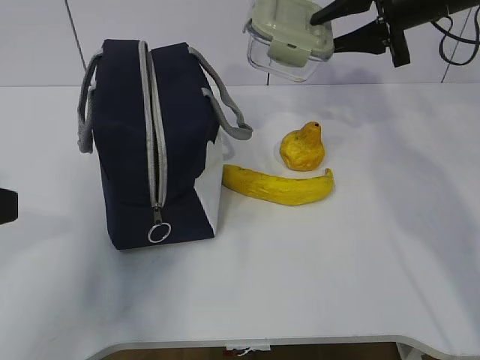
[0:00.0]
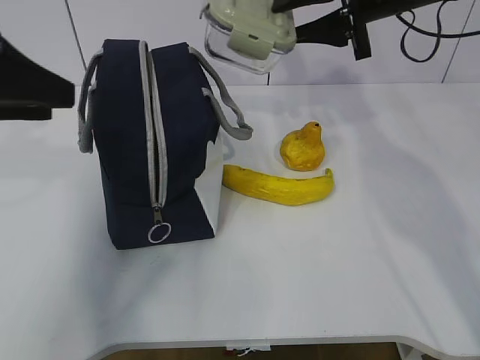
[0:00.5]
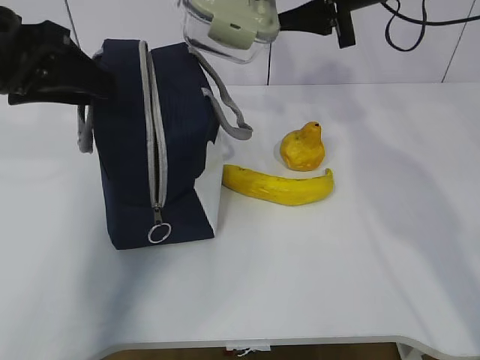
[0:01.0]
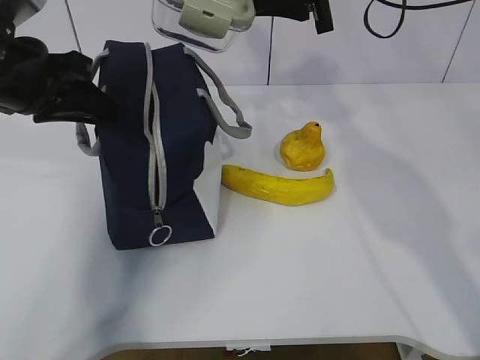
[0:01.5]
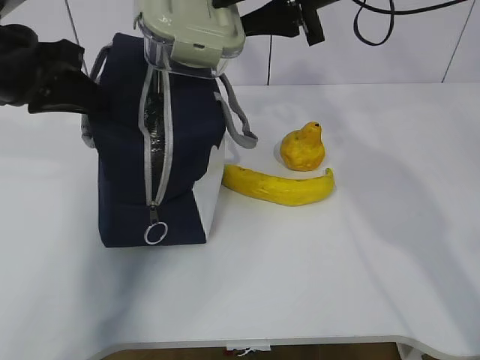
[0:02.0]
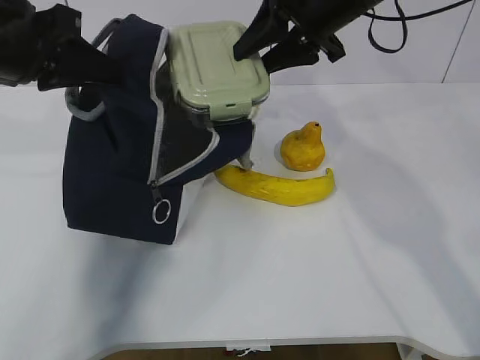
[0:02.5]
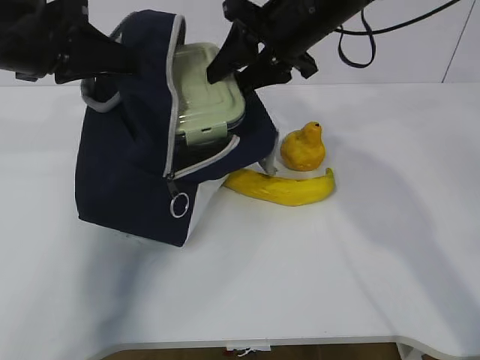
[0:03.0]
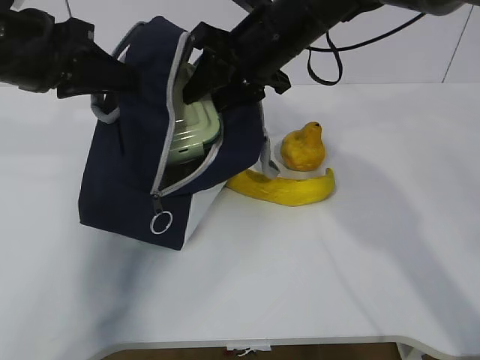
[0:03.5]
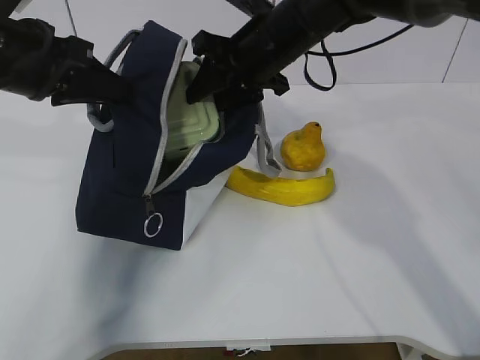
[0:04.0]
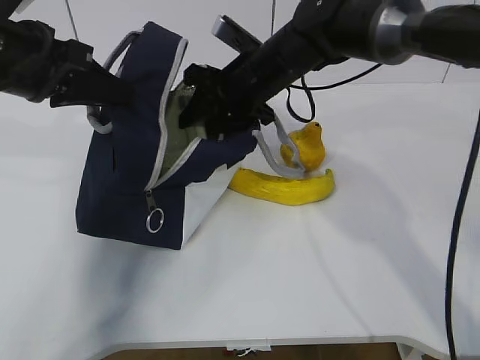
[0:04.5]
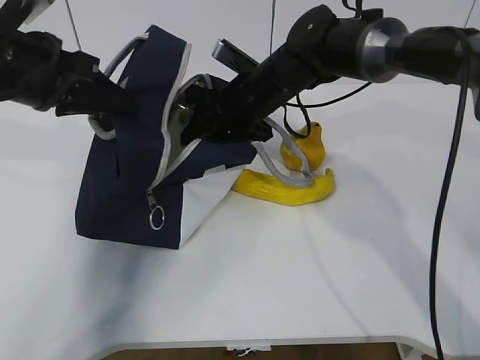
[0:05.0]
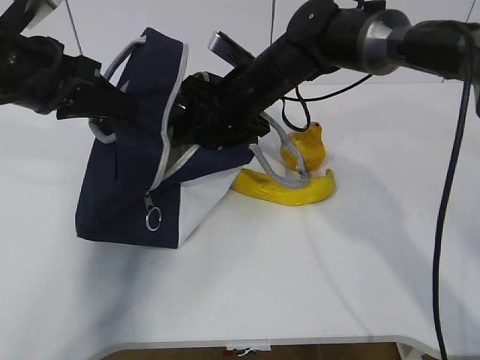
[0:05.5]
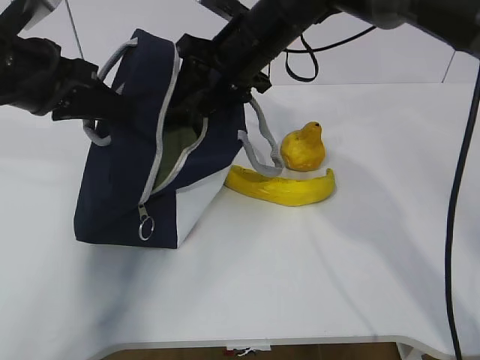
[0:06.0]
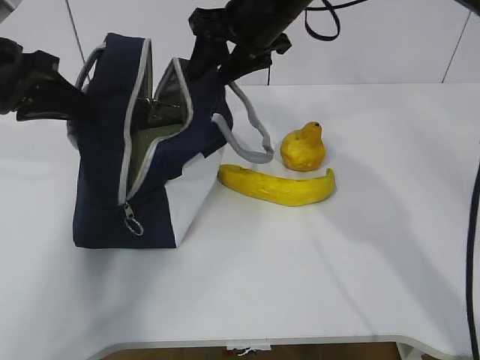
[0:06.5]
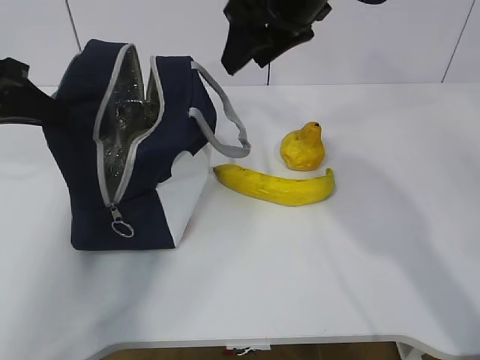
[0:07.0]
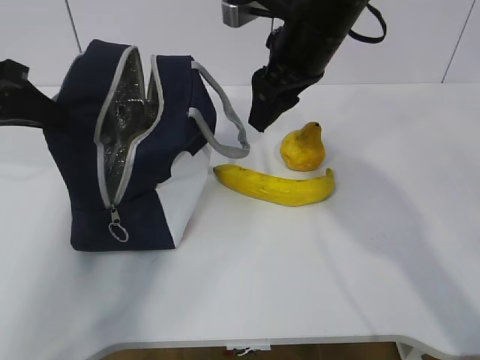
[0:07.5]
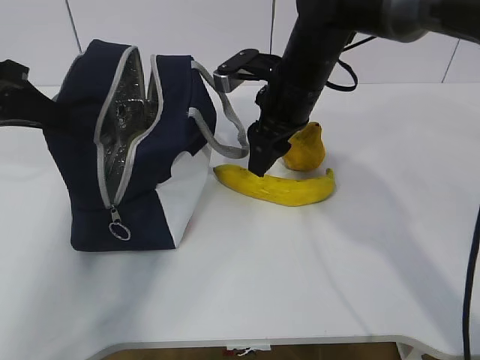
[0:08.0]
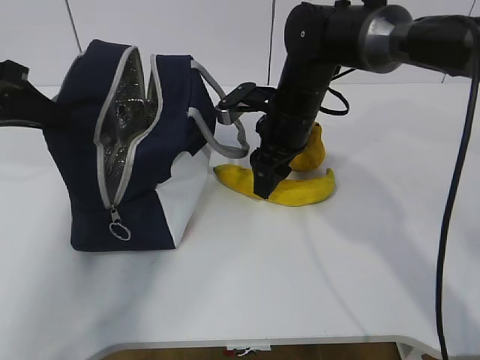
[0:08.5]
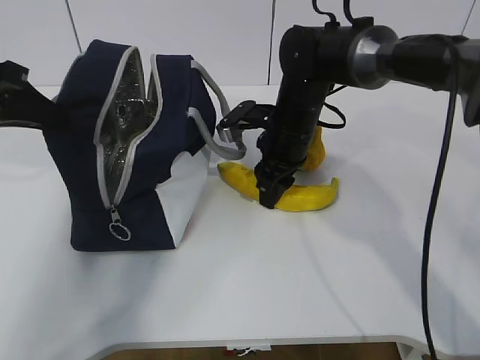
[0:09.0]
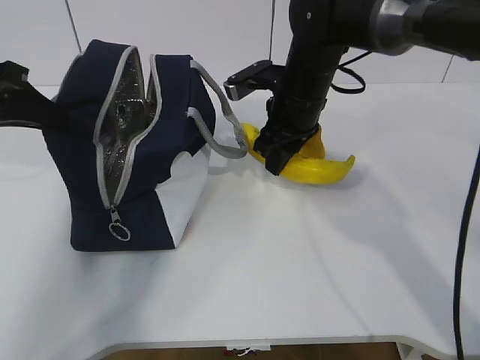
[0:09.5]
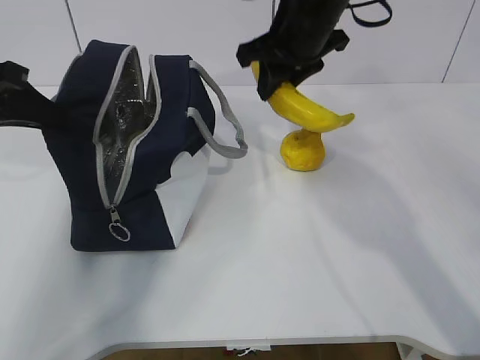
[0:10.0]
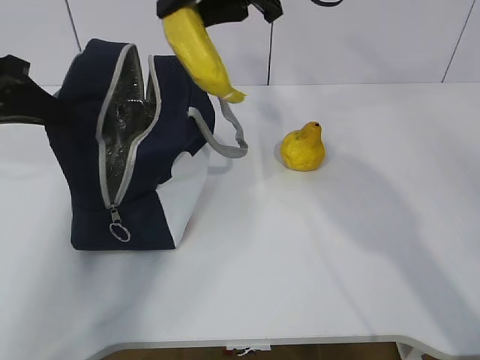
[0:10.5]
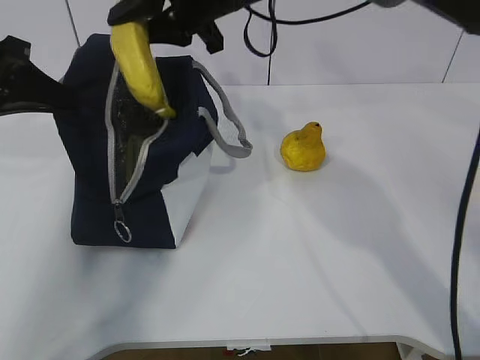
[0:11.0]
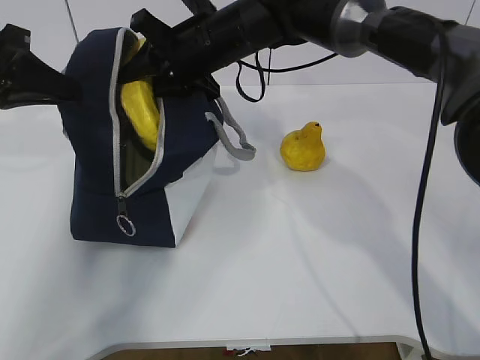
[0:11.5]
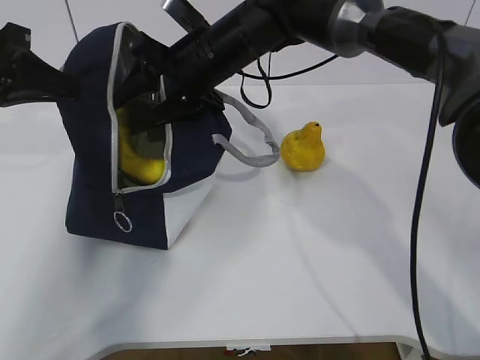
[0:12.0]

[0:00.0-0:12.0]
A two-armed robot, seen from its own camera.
Step, 0.0 to 2.0 s: Grab the banana with your right hand.
Step, 2.5 to 4.5 s: Place it into the bag with your right hand.
Step, 5.5 to 7.0 s: Grab the pear with your right hand.
Step, 10.5 to 11.5 s: Move the lunch bag to the right.
0.0 to 2.0 s: The right gripper shifts about 10 cm to the left, while the left gripper shifts some 15 cm forward, and closes up.
2.0 to 4.0 s: The right gripper travels downward and to the left by roughly 10 cm.
4.0 to 6.0 s: The right gripper goes downward and returns, about 10 cm each way.
6.0 to 8.0 s: The right gripper goes upward and returns, roughly 10 cm each way, while the left gripper shifts about 5 cm to the left.
8.0 to 10.0 s: The right gripper heads upward, covering approximately 5 cm, and closes.
10.0 to 12.0 s: The right gripper goes about 10 cm to the left, and opens.

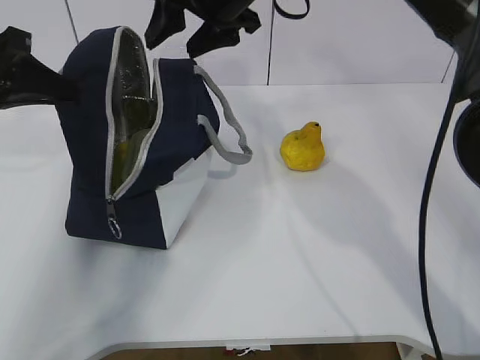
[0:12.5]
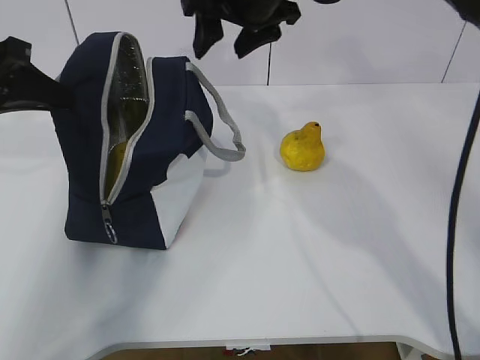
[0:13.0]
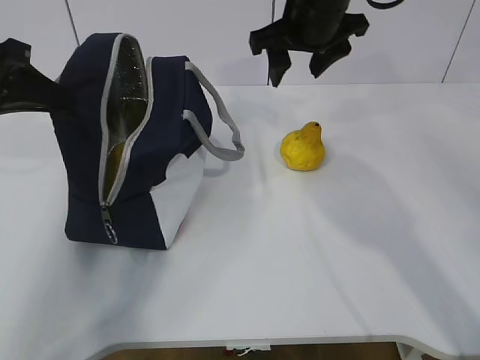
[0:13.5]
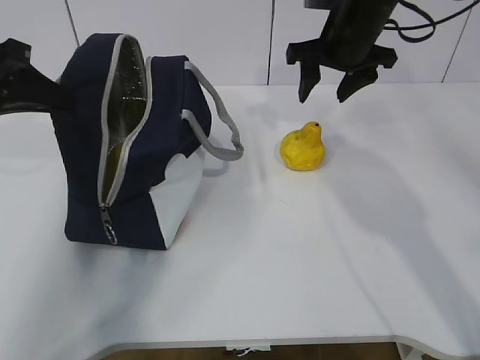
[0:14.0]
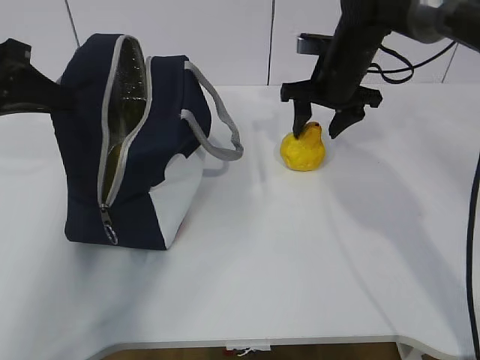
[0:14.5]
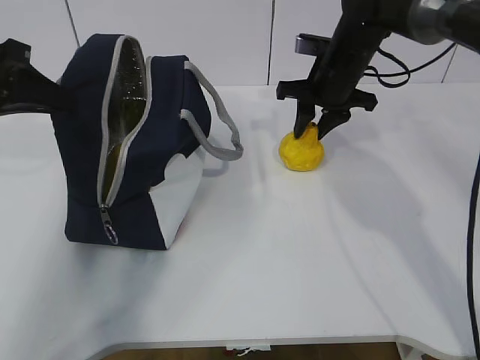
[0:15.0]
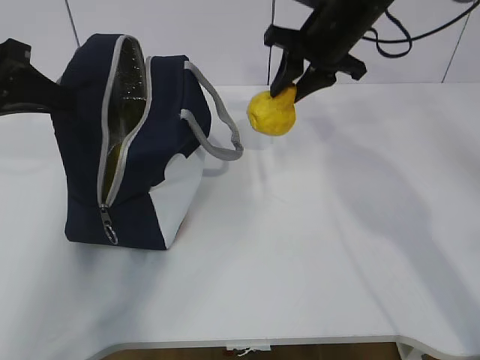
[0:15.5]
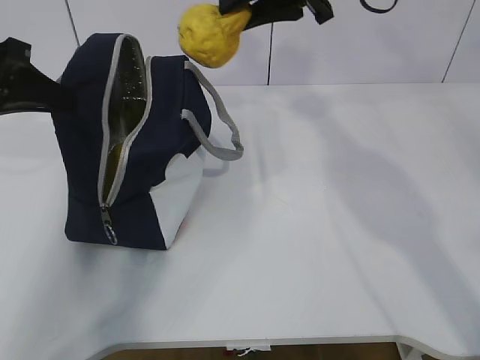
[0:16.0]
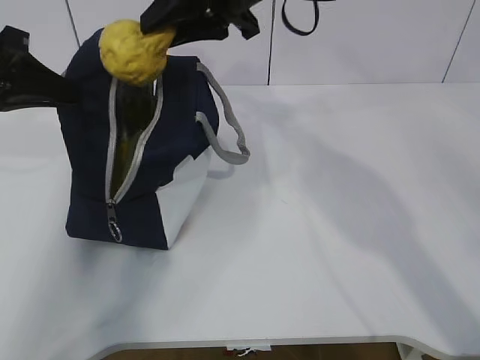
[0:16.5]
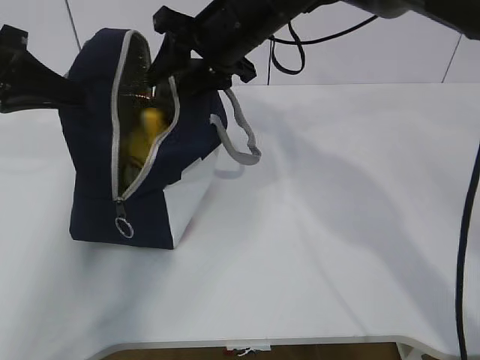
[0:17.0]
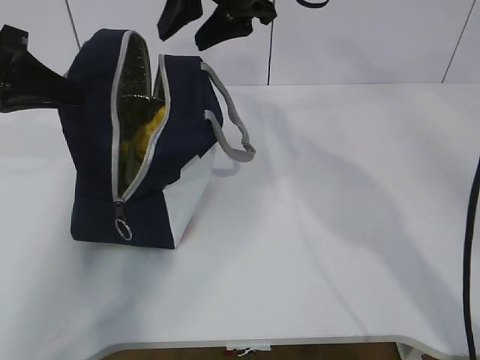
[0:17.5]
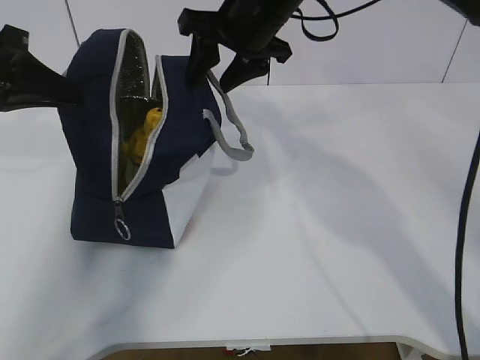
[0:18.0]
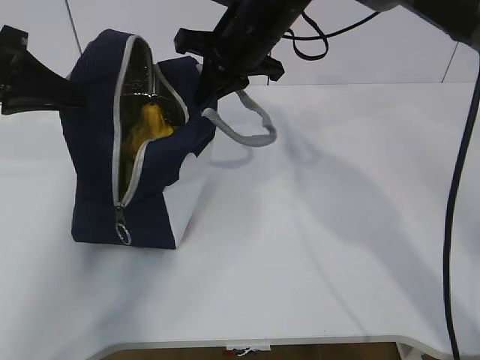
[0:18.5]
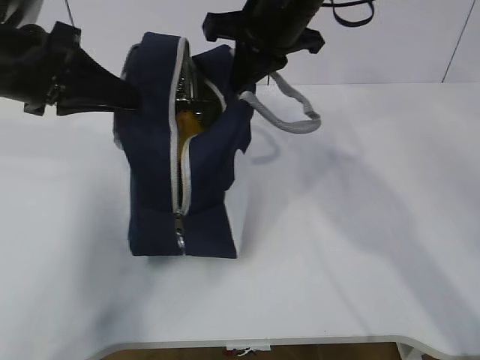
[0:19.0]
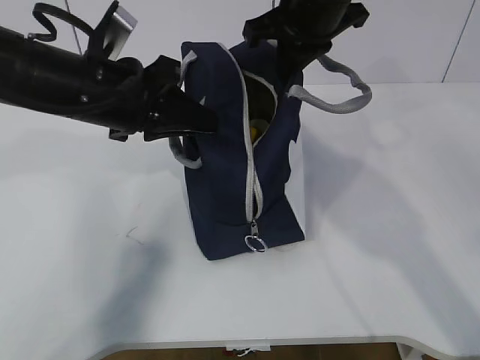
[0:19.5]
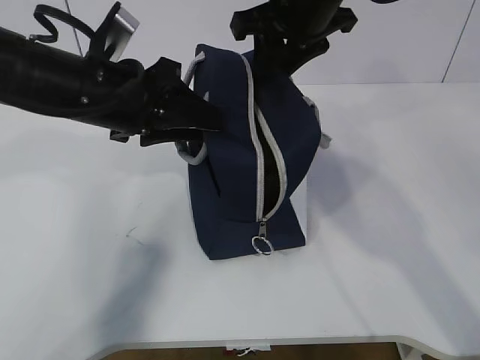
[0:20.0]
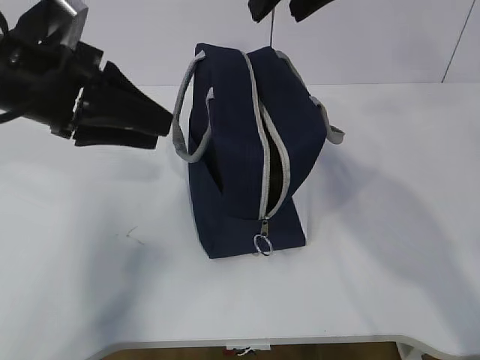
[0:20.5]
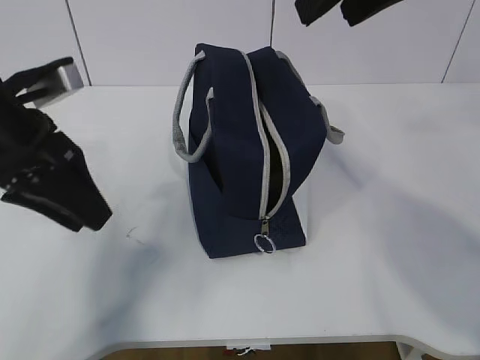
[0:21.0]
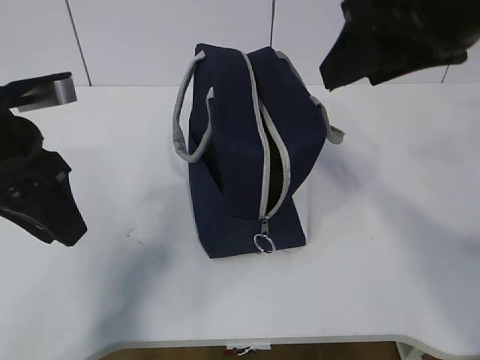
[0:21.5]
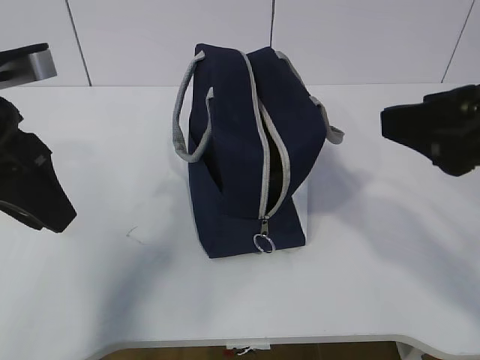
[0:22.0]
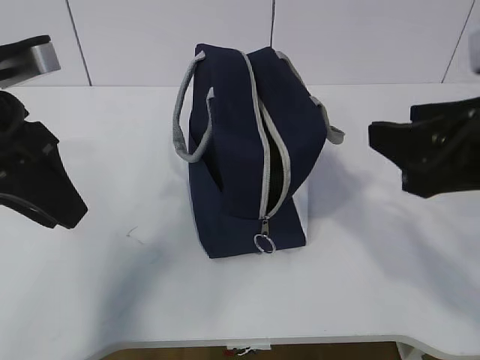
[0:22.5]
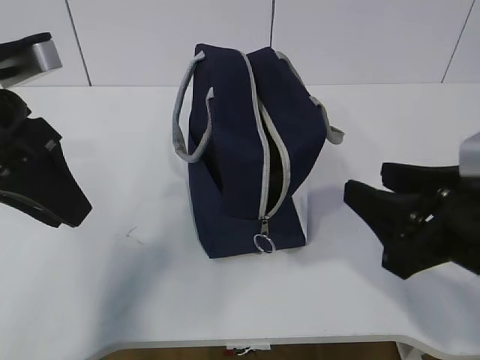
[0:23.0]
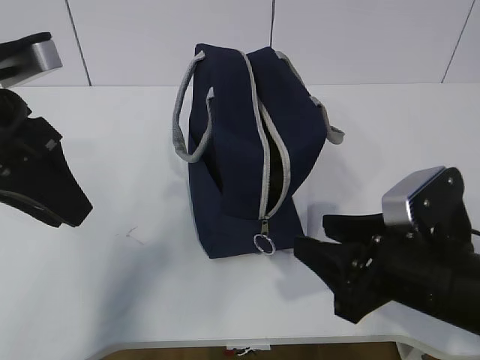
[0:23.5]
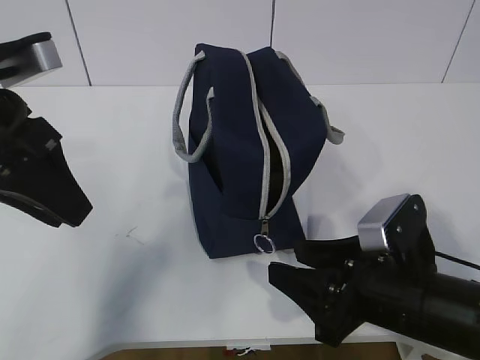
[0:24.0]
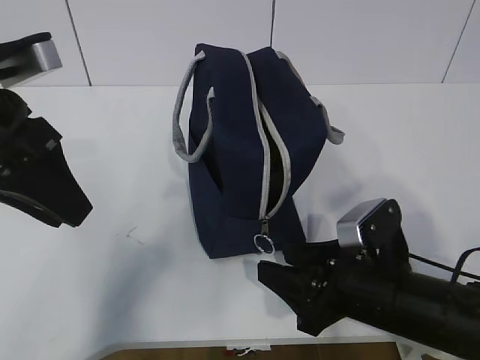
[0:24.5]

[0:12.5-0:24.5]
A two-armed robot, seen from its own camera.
Step, 12.5 to 21.0 s: Grab the lunch bag with your left hand.
12.5 to 14.5 s: The right gripper heads to the right and downward, covering approximately 20 cm.
14.5 to 16.5 s: The right gripper heads upward, to the left and backward, covering roughly 20 cm, and closes its fingers.
16.5 to 18.5 s: The right gripper swings up and down, approximately 5 cm each way, with 2 reversals, and closes up.
18.5 to 20.5 s: The left gripper moves to the right, about 10 cm, and opens, while the right gripper travels upward, backward and to the right by roughly 15 cm, and opens up.
20.5 to 22.5 s: The left gripper goes roughly 5 cm backward; the right gripper shifts approximately 20 cm backward, downward and to the right.
22.5 to 24.5 s: The right gripper travels downward by approximately 20 cm.

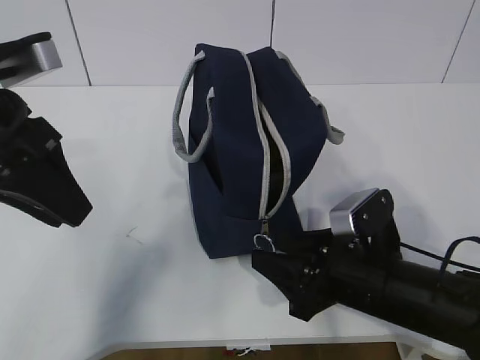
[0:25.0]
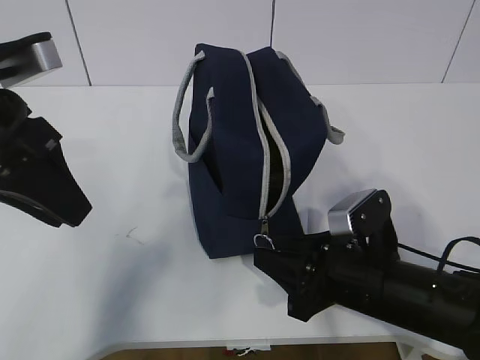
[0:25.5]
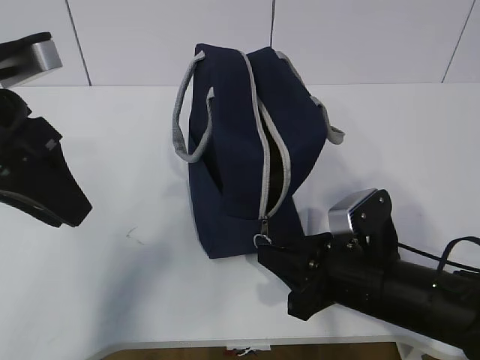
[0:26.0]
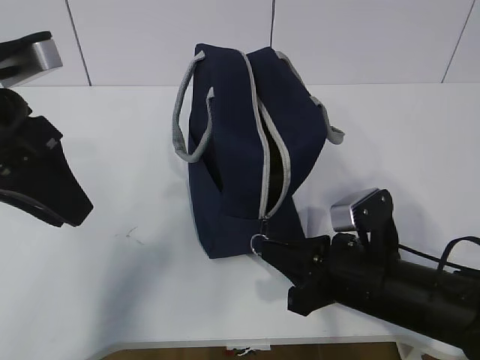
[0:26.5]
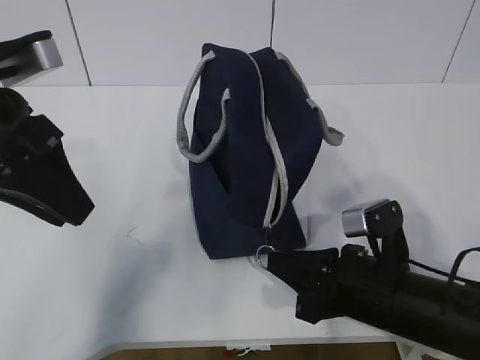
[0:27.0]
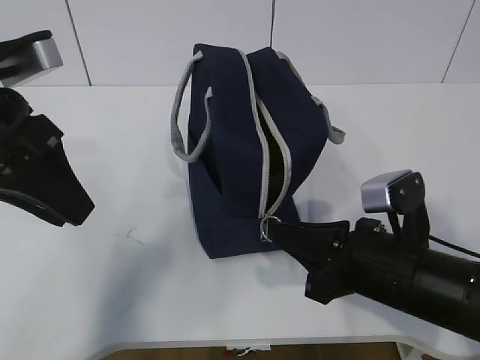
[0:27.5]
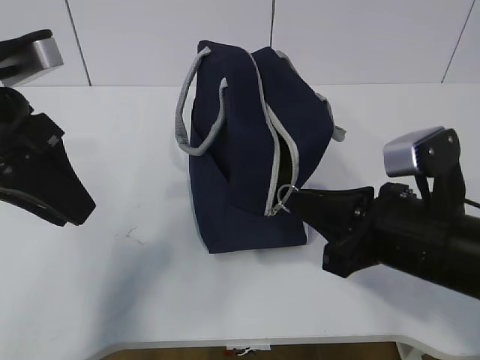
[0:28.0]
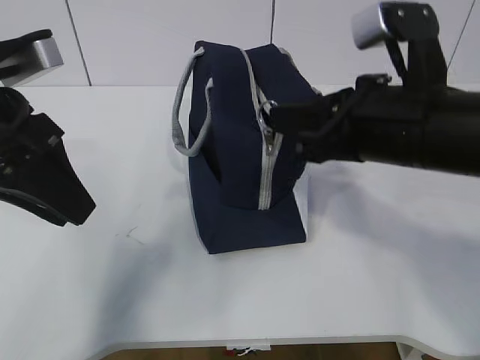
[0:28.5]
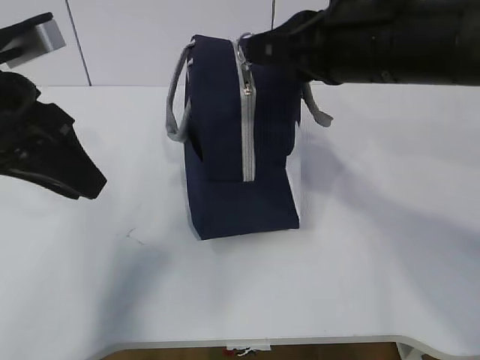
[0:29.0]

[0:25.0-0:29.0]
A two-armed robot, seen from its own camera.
Step, 26.0 to 26.5 s: Grab the lunch bag with your left hand.
25.0 to 27.0 s: The right gripper closes.
27.0 to 29.0 s: The right gripper heads upward, covering roughly 20 cm.
